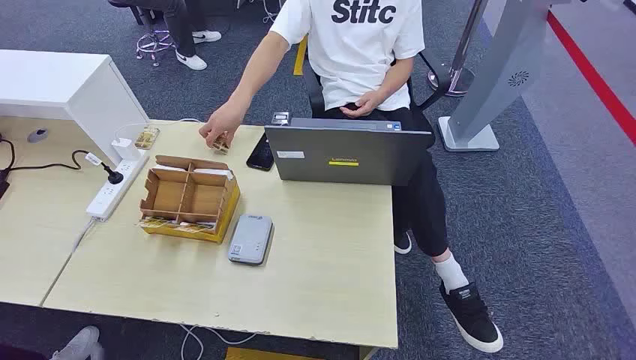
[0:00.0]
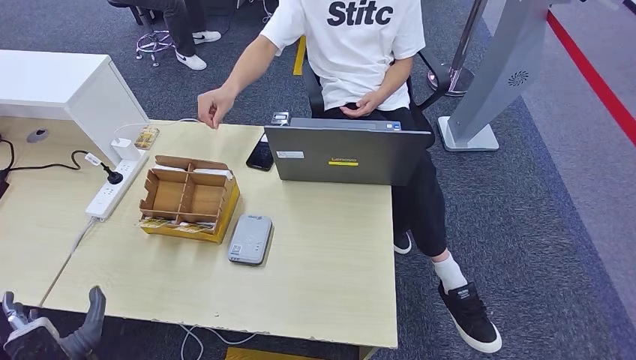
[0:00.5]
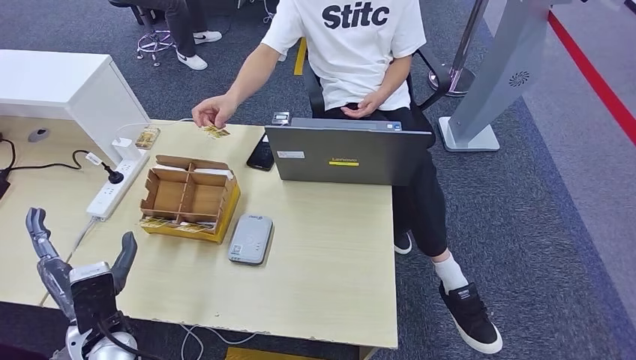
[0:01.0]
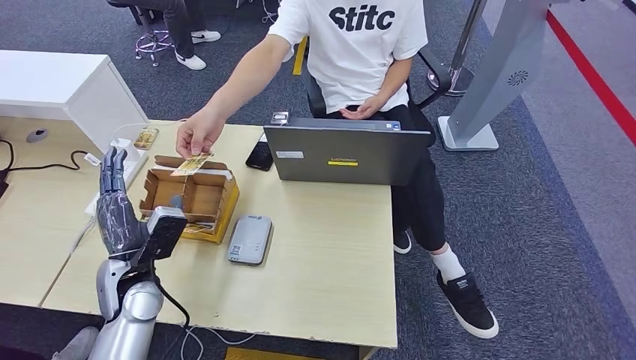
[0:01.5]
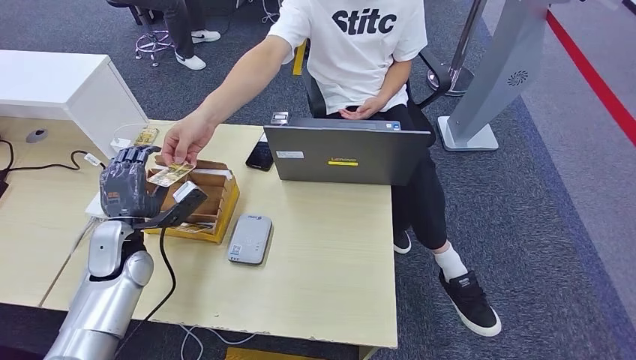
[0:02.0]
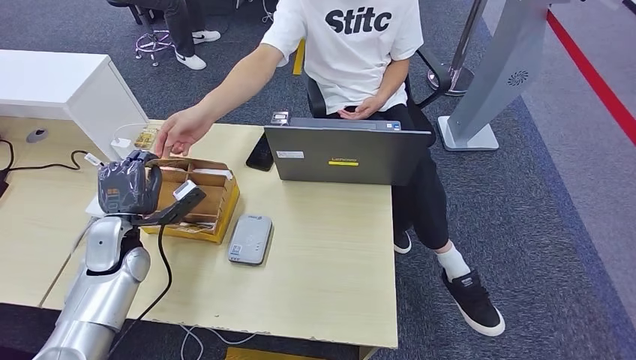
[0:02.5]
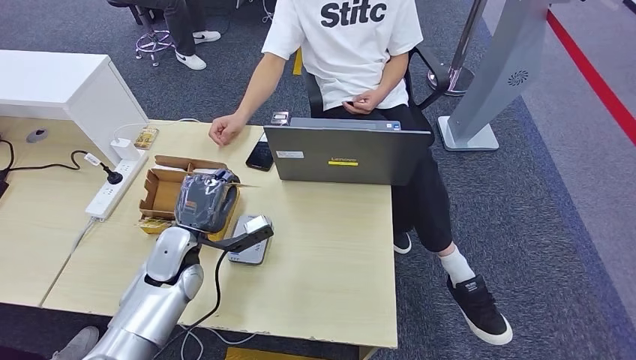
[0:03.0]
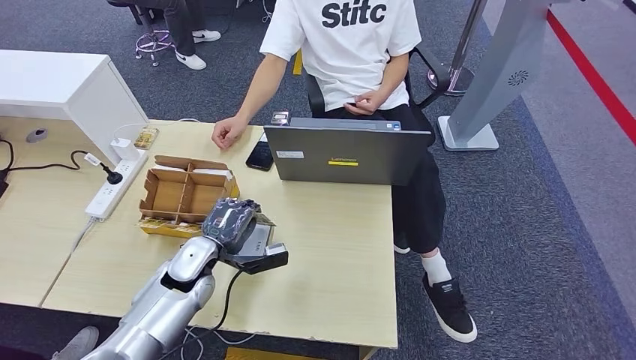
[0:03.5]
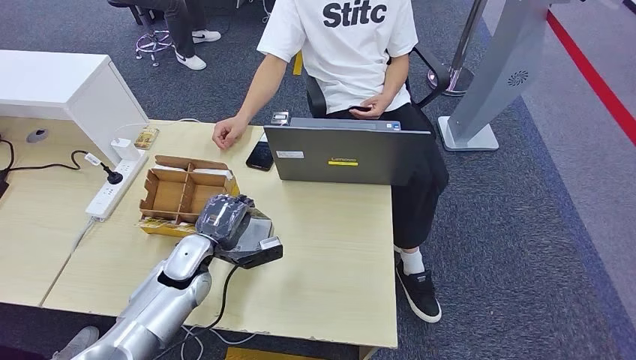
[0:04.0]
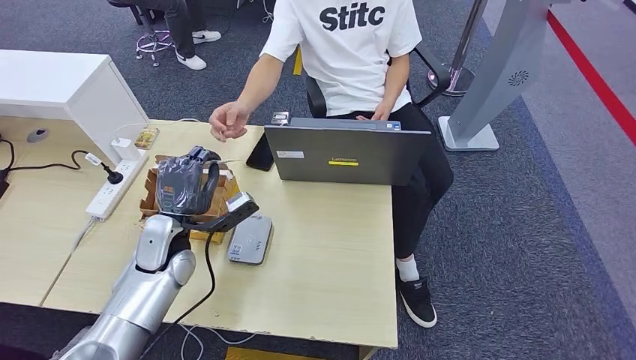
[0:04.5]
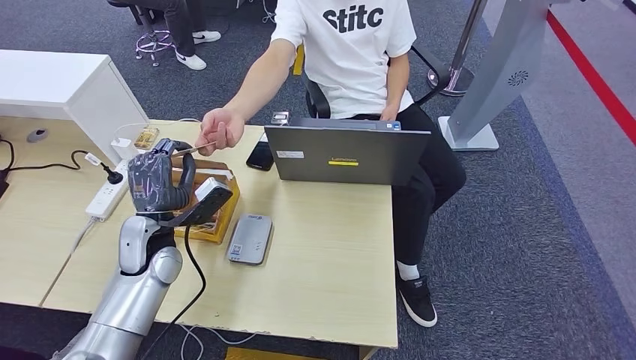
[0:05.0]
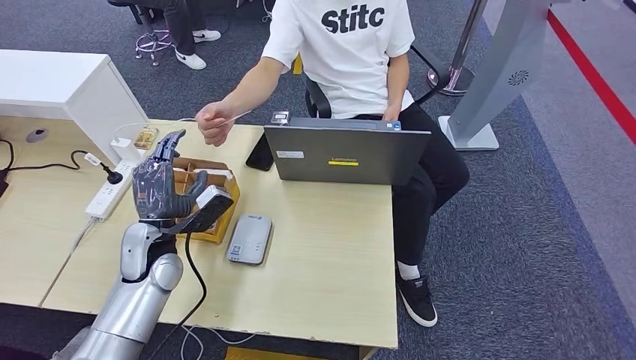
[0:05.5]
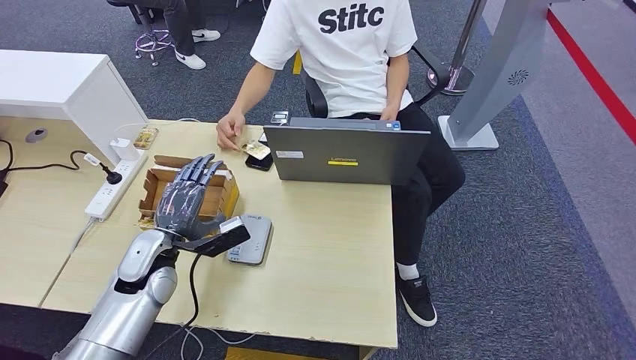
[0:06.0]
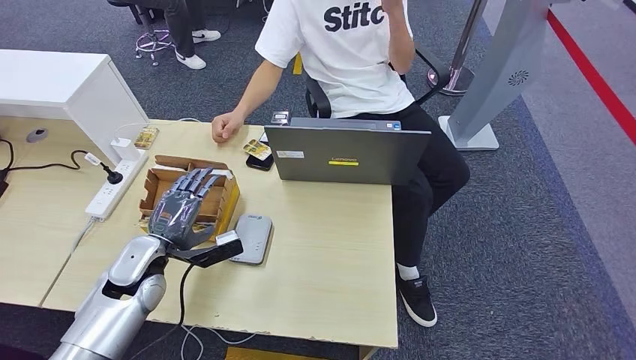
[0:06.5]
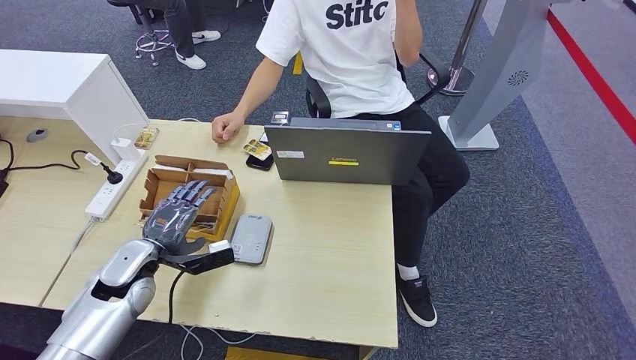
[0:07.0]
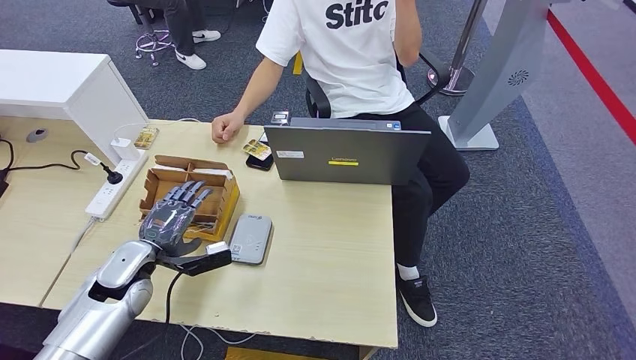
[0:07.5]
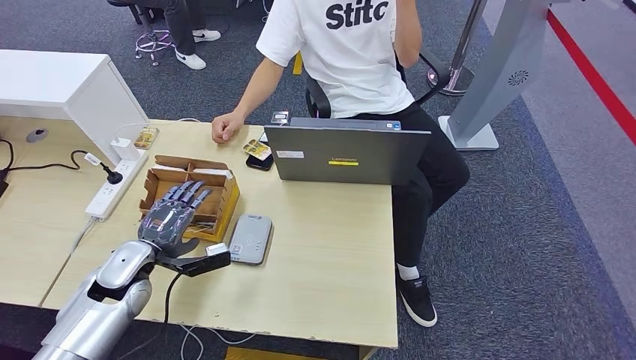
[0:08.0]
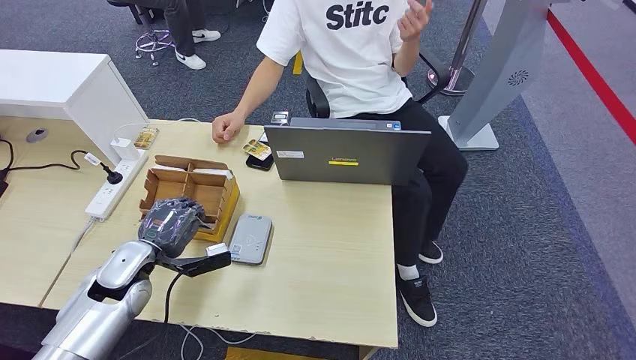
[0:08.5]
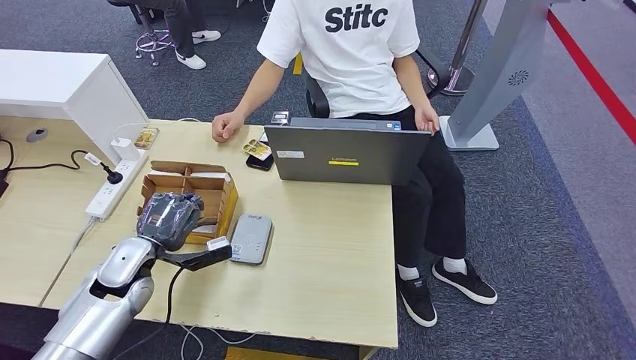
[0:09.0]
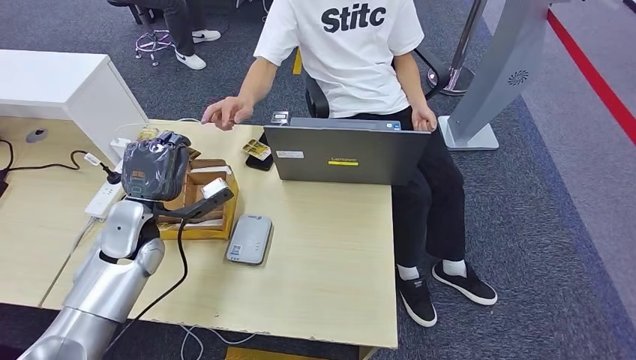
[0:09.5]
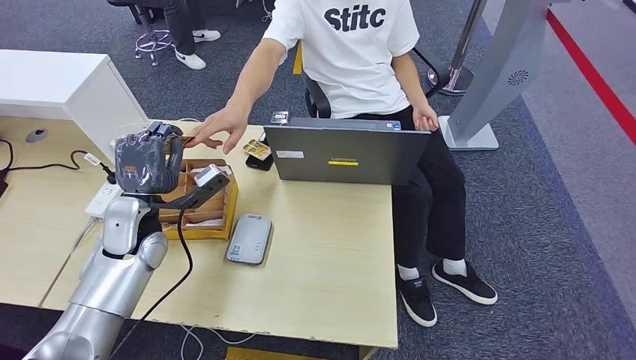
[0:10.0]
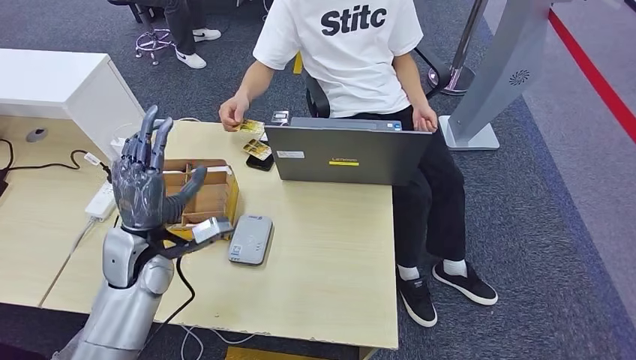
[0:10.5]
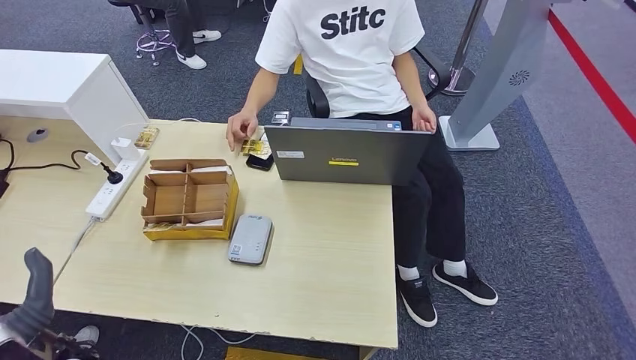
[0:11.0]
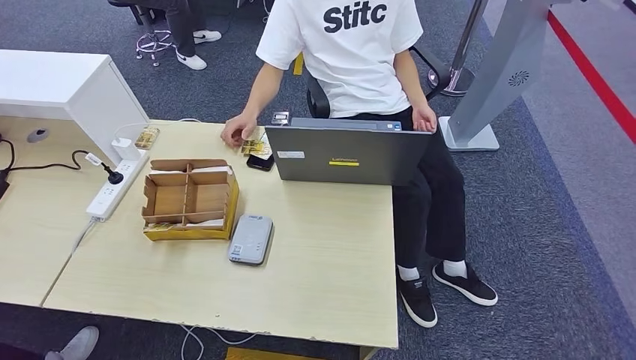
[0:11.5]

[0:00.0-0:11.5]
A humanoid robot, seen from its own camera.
Step, 0:00.0 to 0:02.5: Take the ID card from the person's hand.
Step, 0:03.0 to 0:04.0: Place the ID card on the card reader.
Step, 0:04.5 to 0:06.0: Hand the ID card to the person.
Step, 0:06.5 to 0:09.5: Pick up the room key from the key card box.
Step, 0:10.0 to 0:11.5: Hand the room key to the person.
0:02.0 to 0:04.0: The left hand heads to the right and downward, covering about 10 cm.
0:04.0 to 0:06.0: The left hand moves to the left, about 5 cm.
0:06.0 to 0:07.5: The left hand moves to the left, some 5 cm.
0:07.5 to 0:09.5: The left hand is displaced upward and forward by roughly 10 cm.
0:09.5 to 0:11.5: The left hand is displaced backward and downward by roughly 35 cm.
